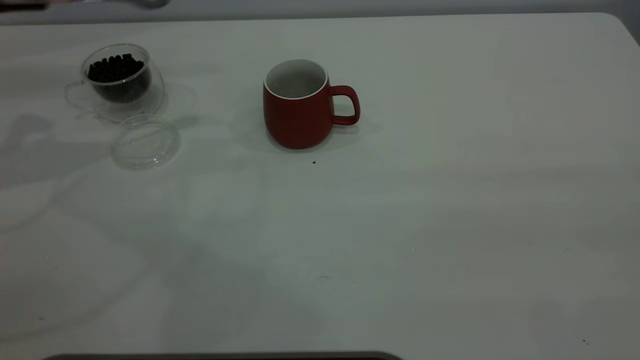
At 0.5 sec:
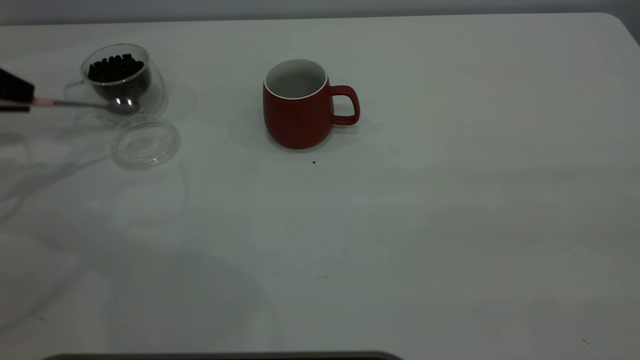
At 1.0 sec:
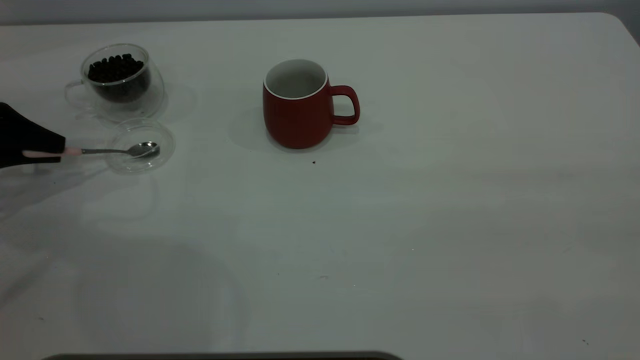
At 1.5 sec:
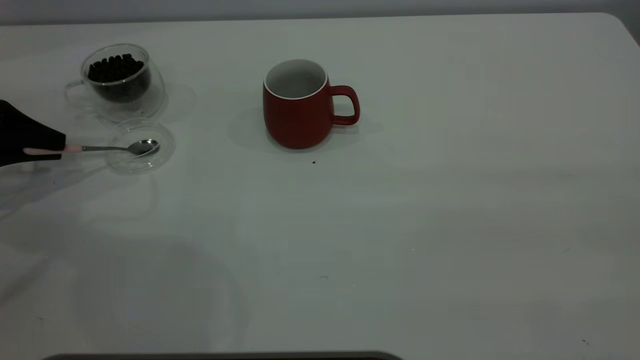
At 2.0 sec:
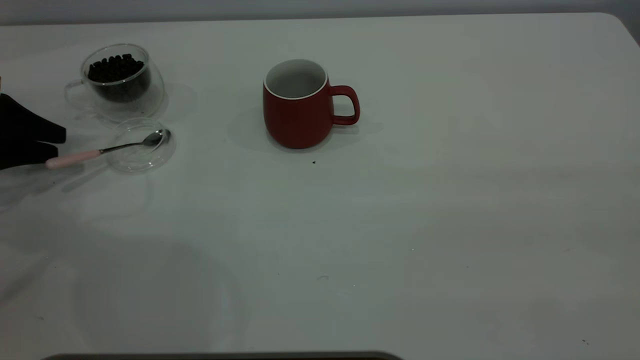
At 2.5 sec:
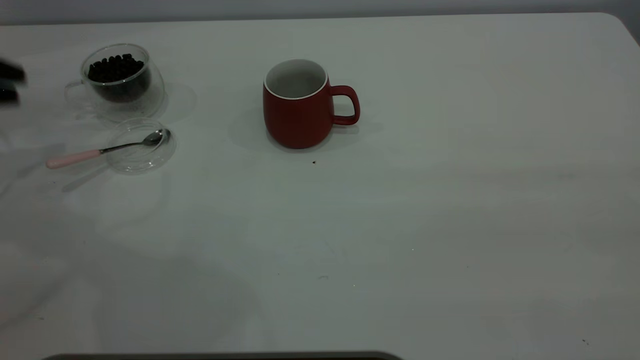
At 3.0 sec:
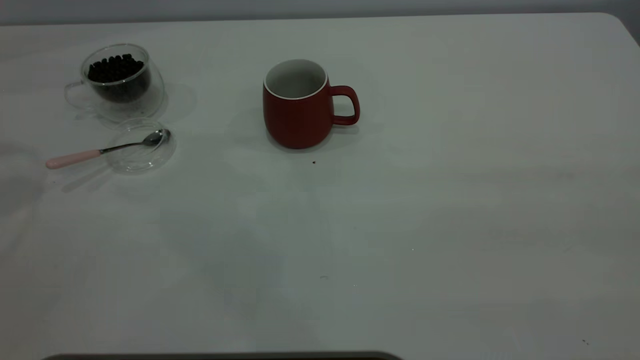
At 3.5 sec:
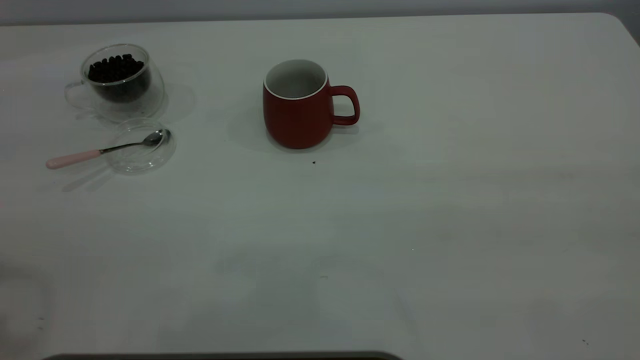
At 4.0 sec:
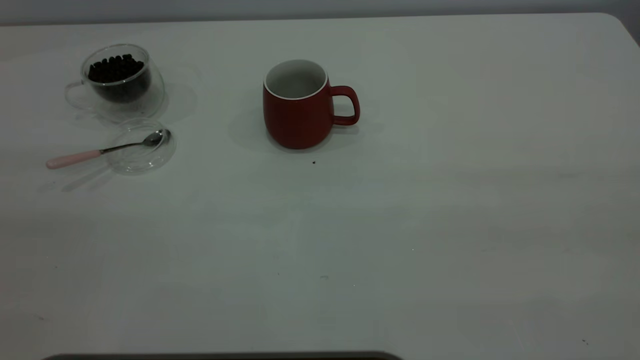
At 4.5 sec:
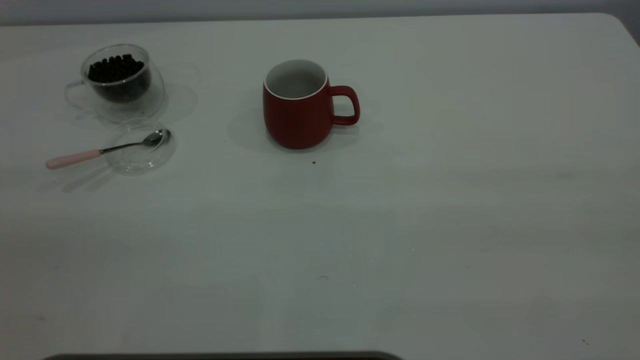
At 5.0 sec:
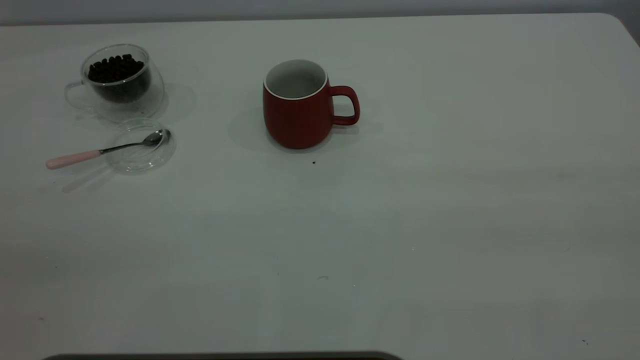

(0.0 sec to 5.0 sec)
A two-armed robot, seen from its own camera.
Task of the whole recording: the right gripper place the red cup in the center of the table, the left gripper take the pink spoon from the cup lid and scoop out the coffee beans from the coffee cup and put them into the red cup, the left gripper put the spoon back into the cup lid.
Step, 0.0 sec - 2.0 sec: Place the spoon back in its original place.
0.0 sec - 2.5 sec: The left gripper travels downward and to the left by roughly 10 cm, and opens its fingers.
